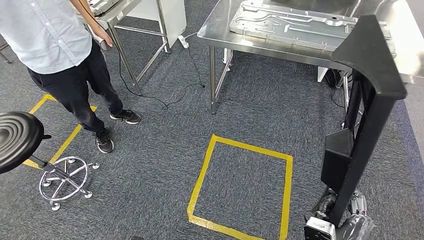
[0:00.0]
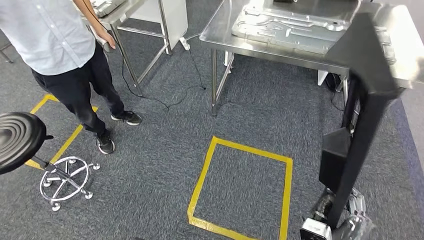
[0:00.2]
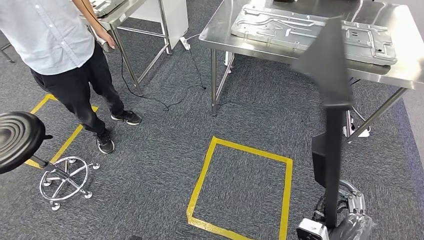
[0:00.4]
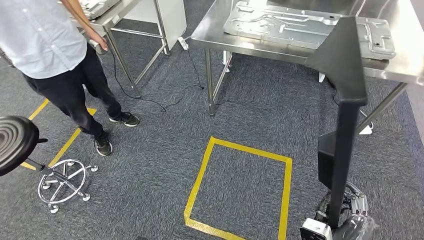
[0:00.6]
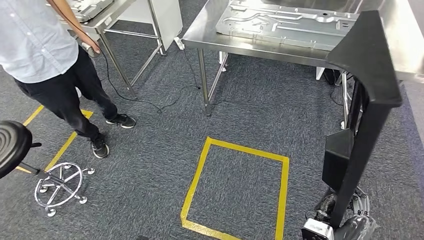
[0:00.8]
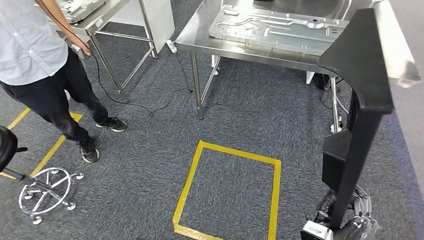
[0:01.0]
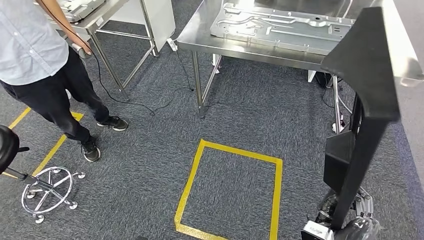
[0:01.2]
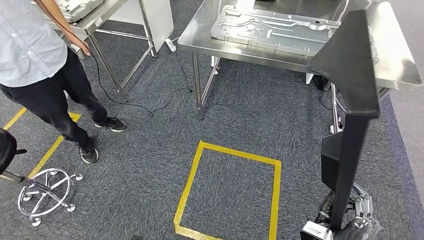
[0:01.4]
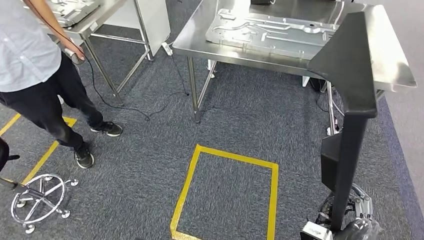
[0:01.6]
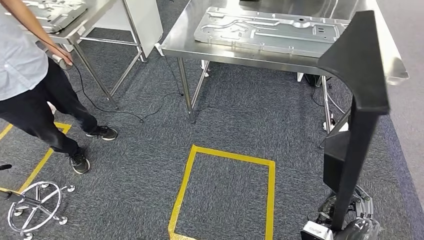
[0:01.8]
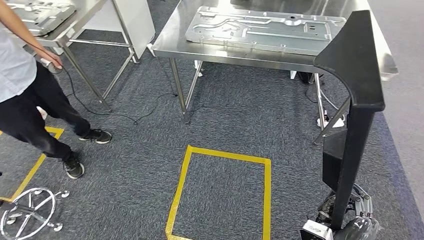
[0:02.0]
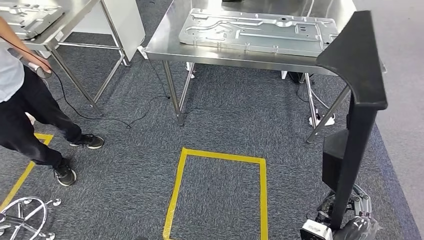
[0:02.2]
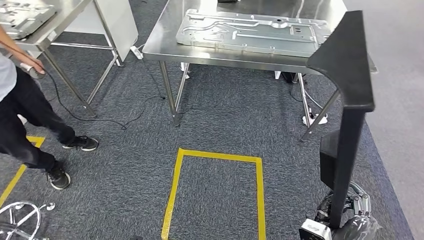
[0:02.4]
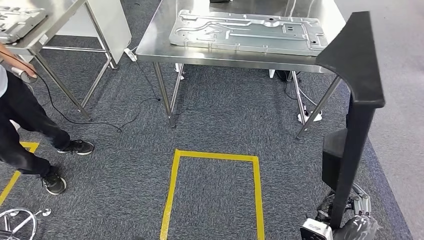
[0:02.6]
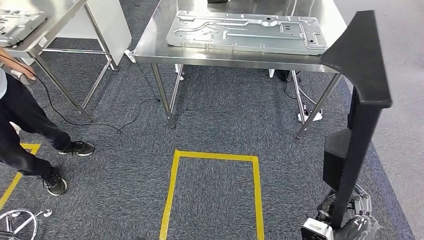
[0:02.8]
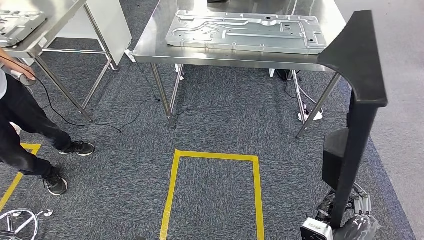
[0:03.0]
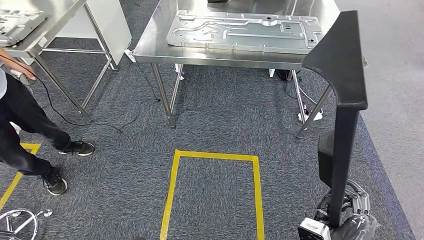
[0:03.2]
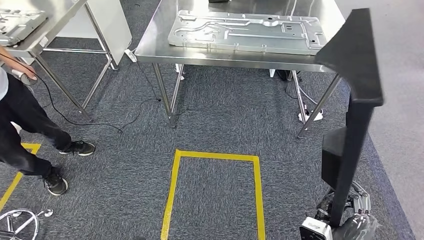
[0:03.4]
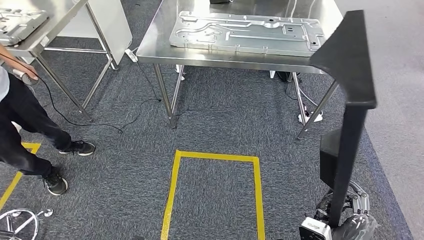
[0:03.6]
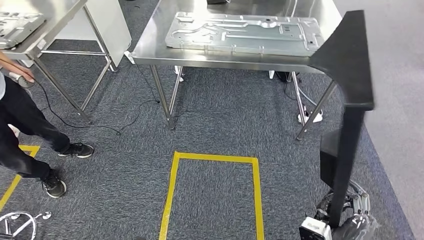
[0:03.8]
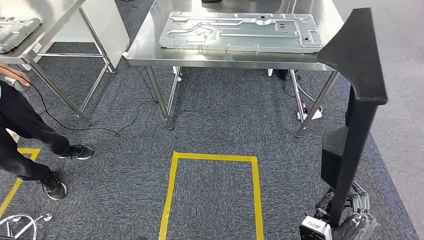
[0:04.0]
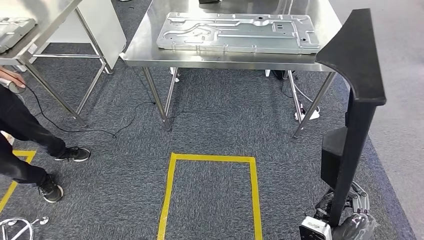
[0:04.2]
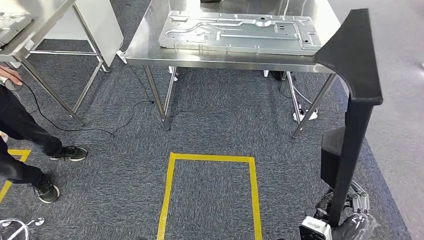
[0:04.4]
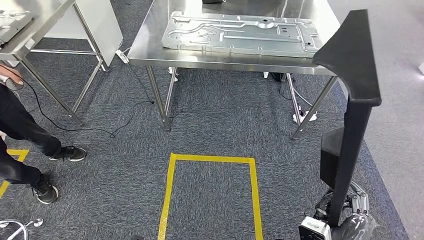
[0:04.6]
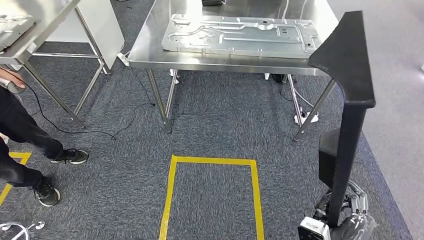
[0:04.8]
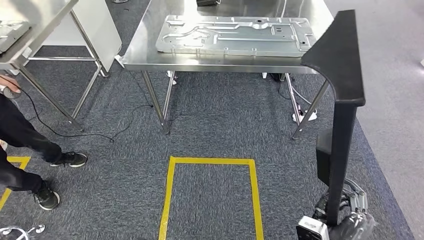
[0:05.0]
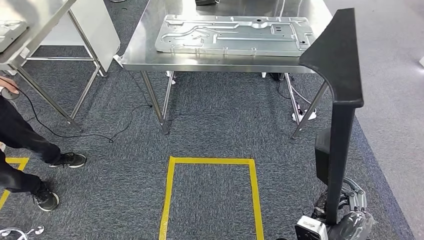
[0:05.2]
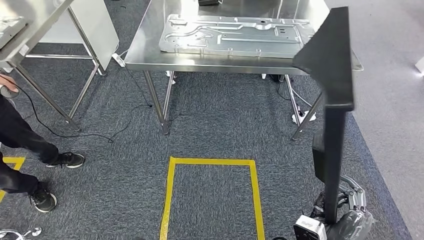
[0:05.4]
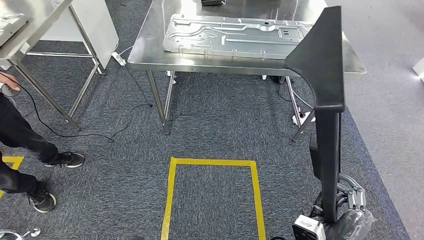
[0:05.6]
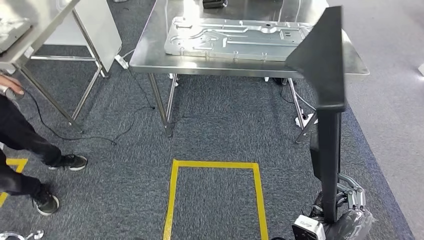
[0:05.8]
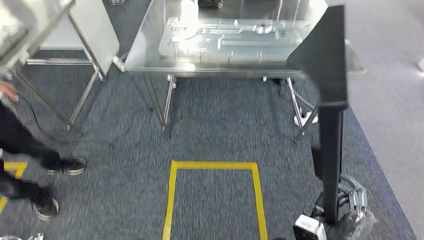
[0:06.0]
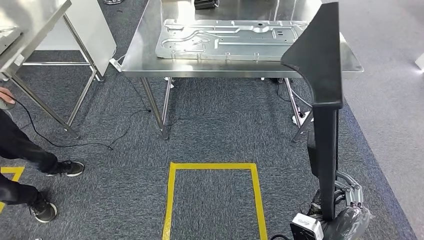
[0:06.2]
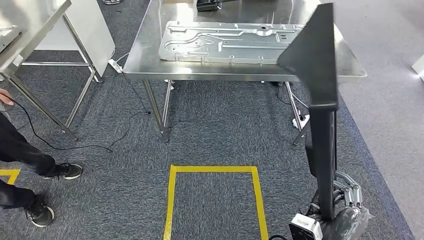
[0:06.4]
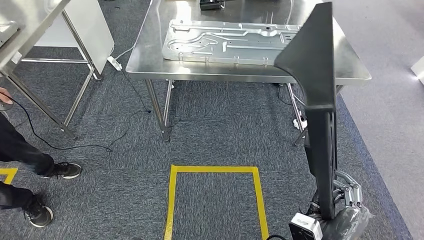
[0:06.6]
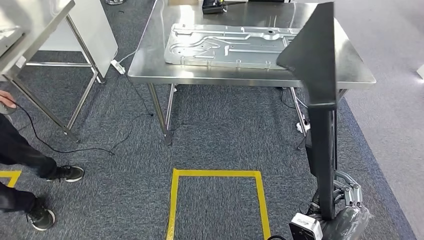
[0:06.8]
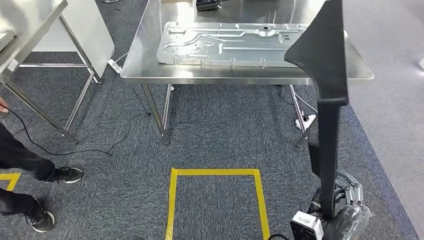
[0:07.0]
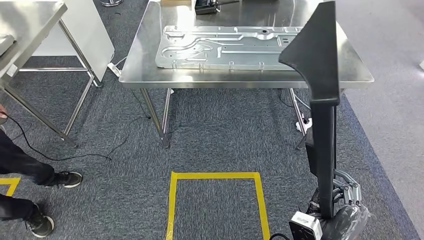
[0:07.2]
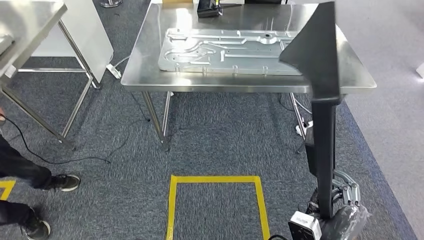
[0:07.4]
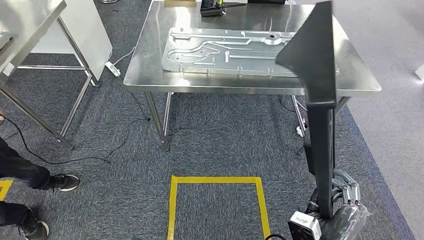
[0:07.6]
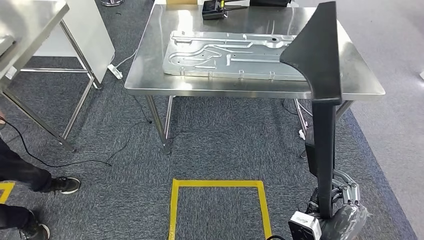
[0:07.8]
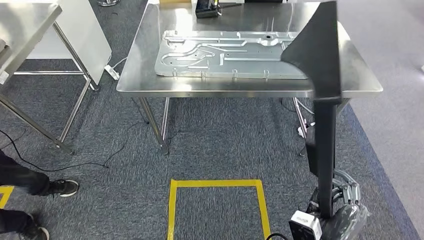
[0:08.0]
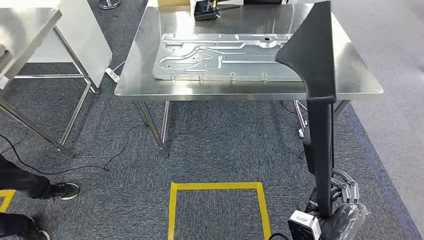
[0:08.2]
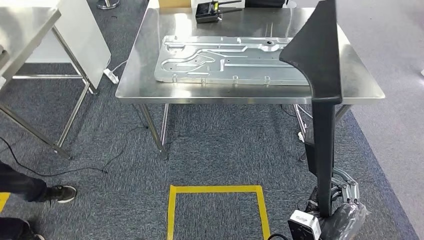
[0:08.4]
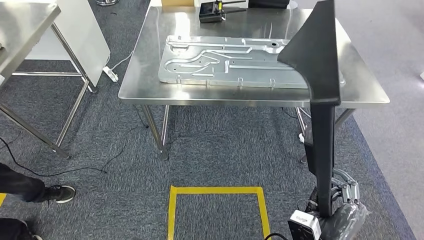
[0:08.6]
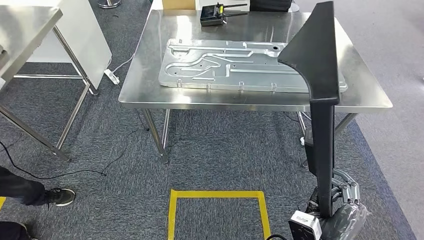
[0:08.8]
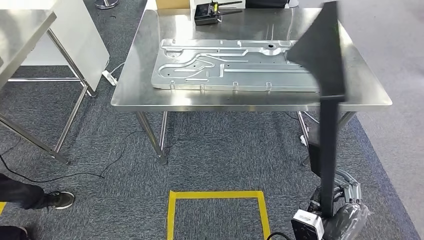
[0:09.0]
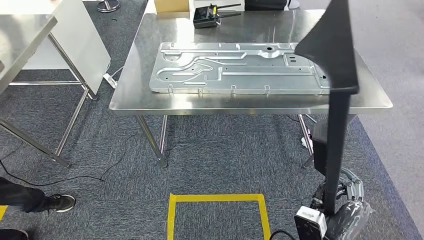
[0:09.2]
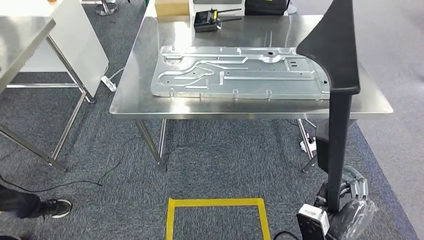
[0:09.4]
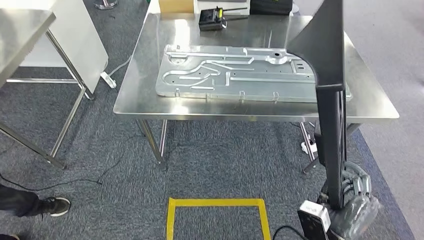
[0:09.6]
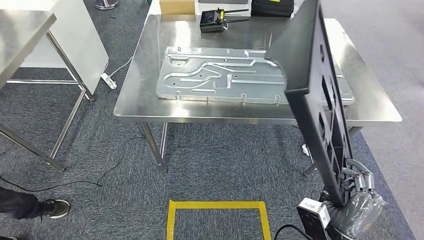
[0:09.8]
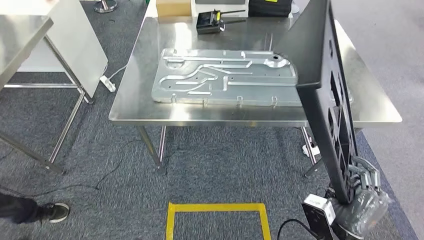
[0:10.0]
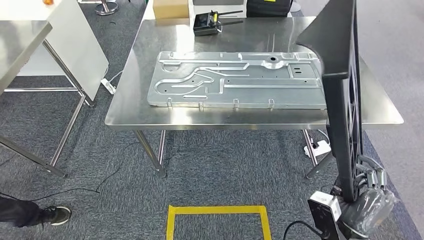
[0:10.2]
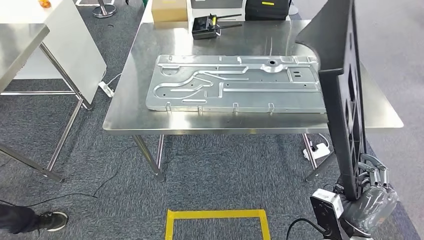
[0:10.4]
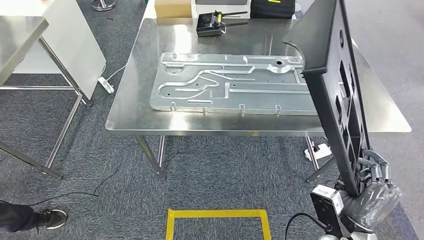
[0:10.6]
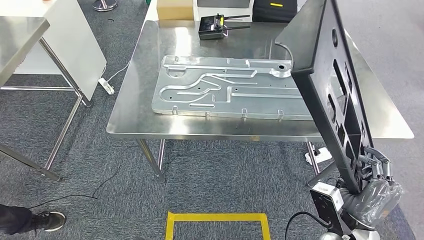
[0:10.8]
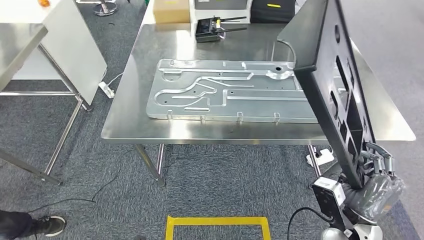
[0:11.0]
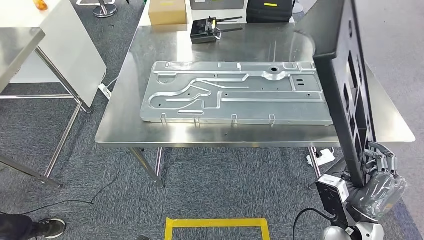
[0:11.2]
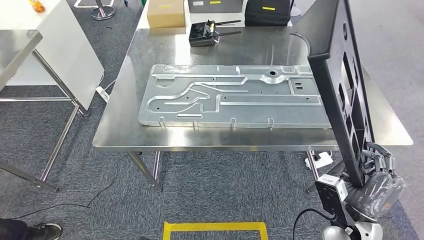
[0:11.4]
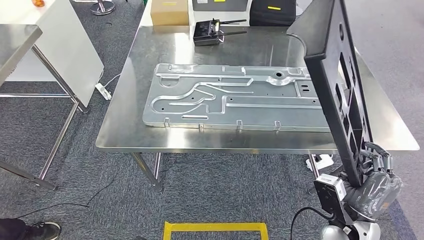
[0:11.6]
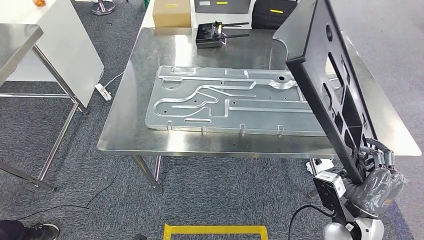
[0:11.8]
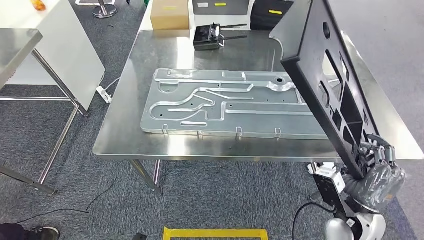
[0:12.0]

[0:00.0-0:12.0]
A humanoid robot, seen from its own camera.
Step, 0:00.0 to 0:10.0: Move the large material to the workbench.

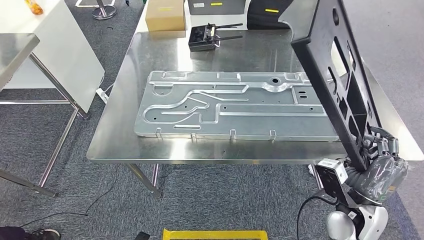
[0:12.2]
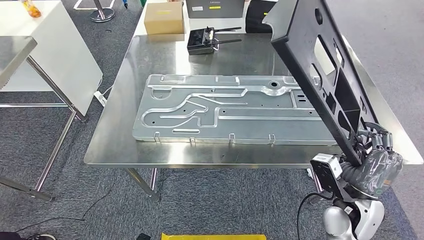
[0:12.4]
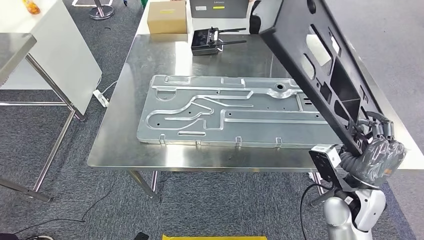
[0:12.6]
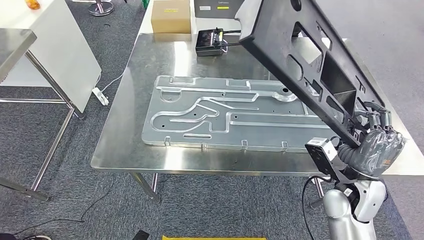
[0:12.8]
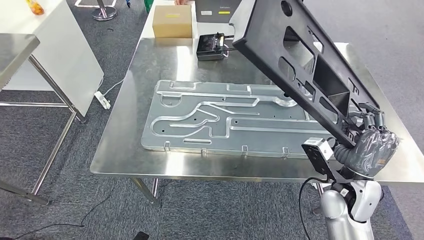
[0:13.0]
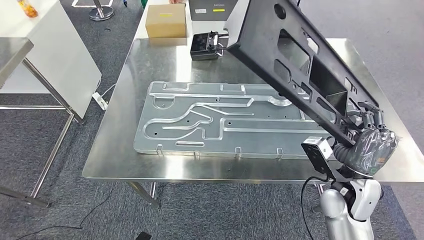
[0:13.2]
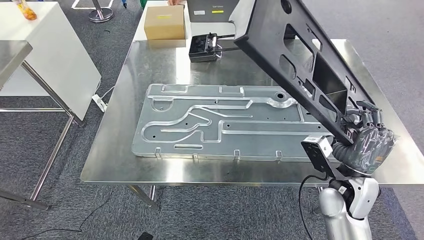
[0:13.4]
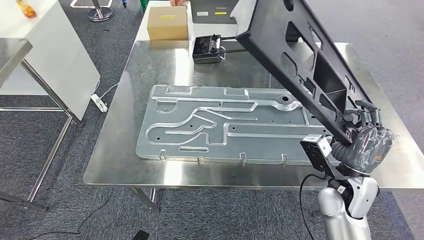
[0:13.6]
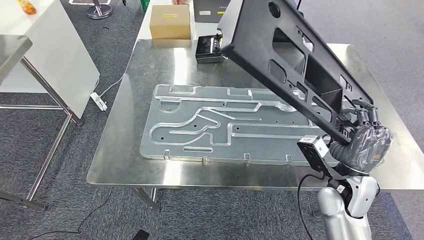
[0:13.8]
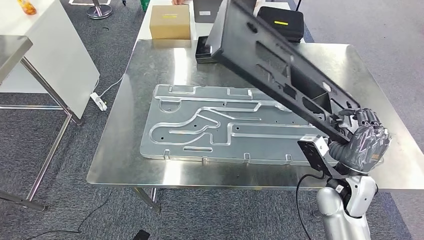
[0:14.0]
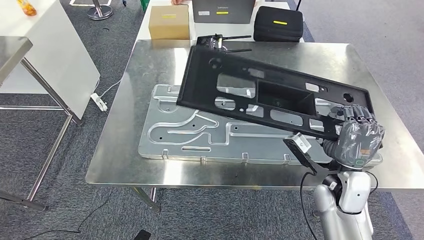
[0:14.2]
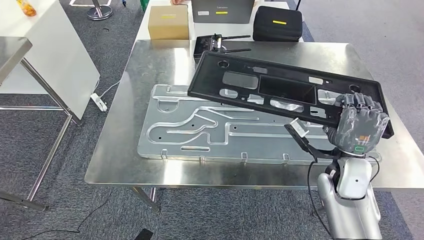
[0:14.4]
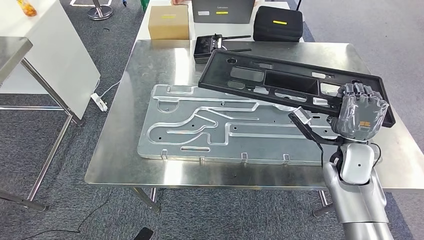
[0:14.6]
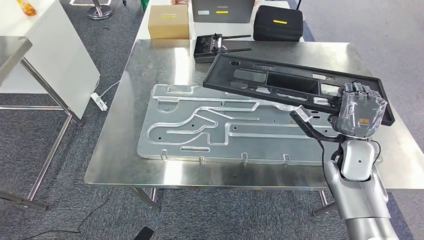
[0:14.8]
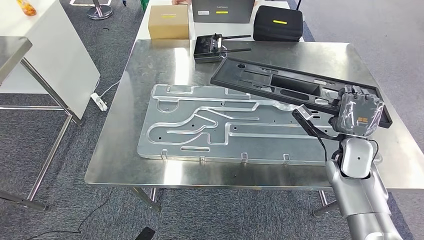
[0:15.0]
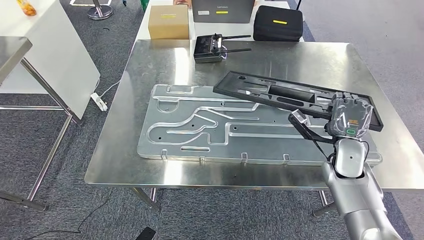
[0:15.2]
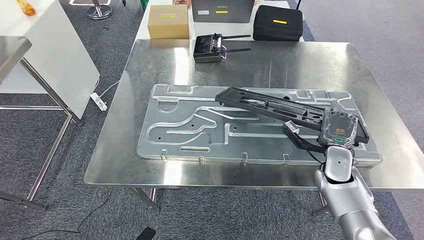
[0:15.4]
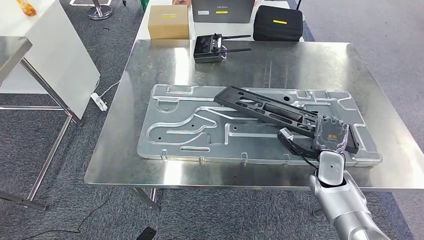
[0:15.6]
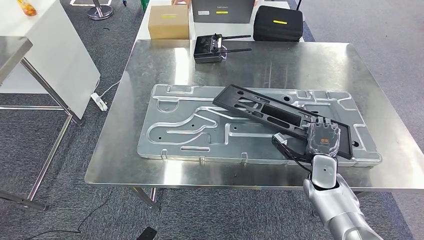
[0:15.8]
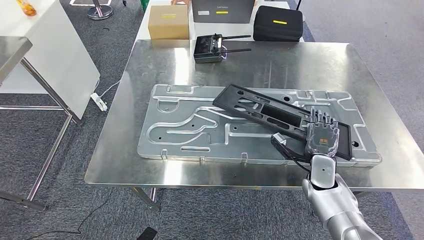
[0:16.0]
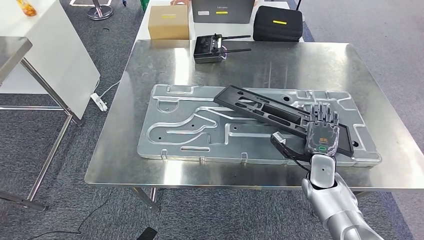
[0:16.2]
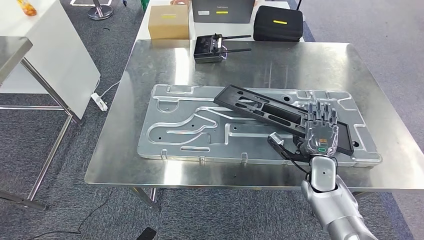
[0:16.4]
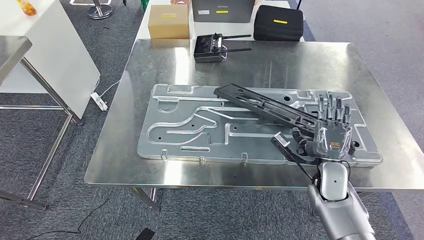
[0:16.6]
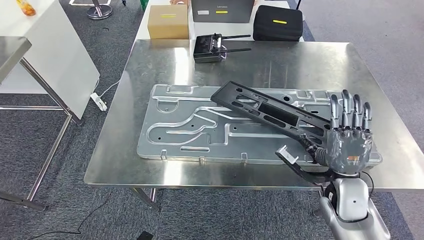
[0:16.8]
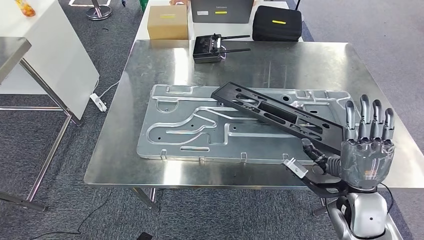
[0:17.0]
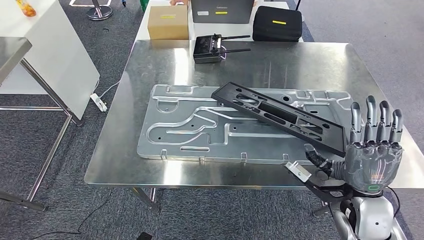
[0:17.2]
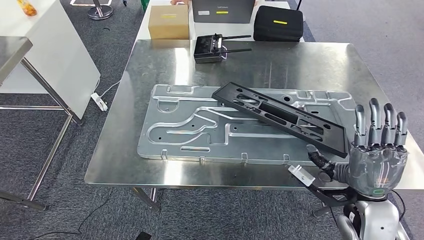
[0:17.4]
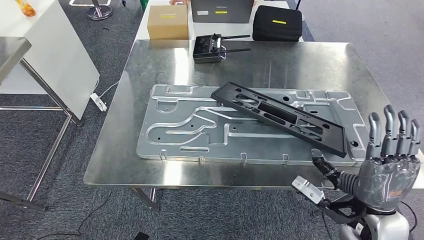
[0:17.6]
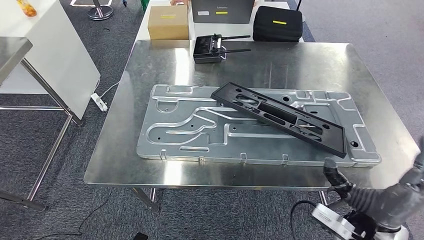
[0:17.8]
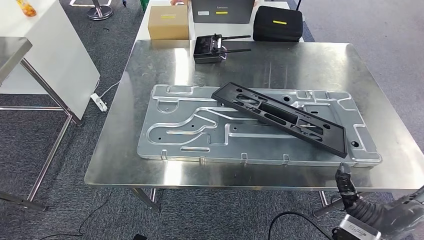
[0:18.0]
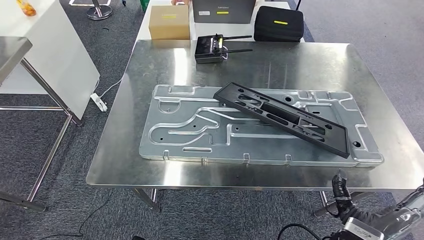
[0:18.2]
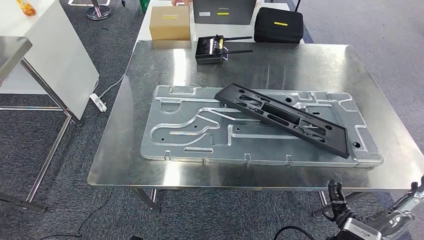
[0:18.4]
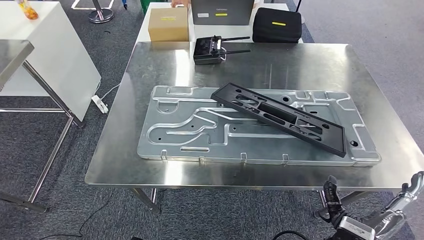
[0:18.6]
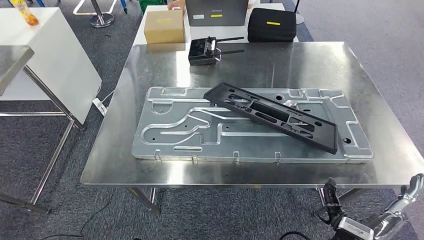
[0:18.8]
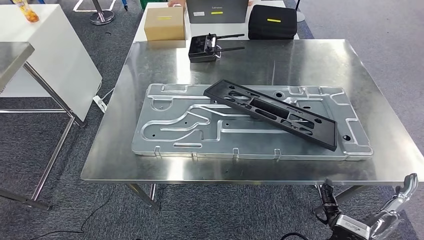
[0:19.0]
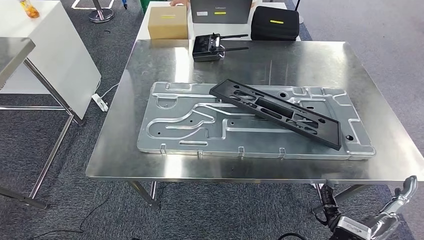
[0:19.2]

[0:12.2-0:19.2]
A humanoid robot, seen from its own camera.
Step, 0:14.0 to 0:19.0: Insert the large material into the corresponding slot on the workbench.
0:15.0 to 0:16.4: The right hand heads downward, covering approximately 10 cm.
0:16.4 to 0:17.8: The right hand shifts some 20 cm backward and upward.
0:17.8 to 0:19.2: The right hand moves downward and to the left, roughly 10 cm.
